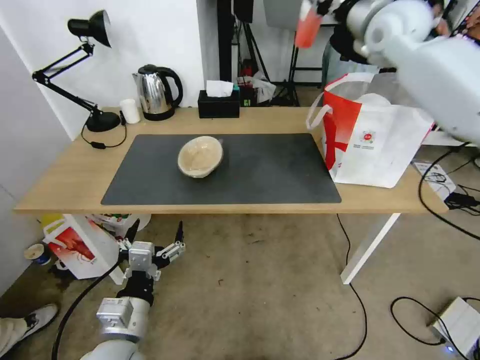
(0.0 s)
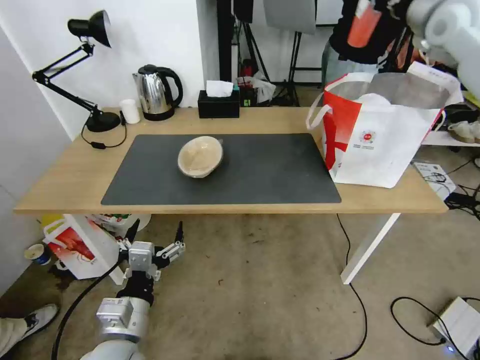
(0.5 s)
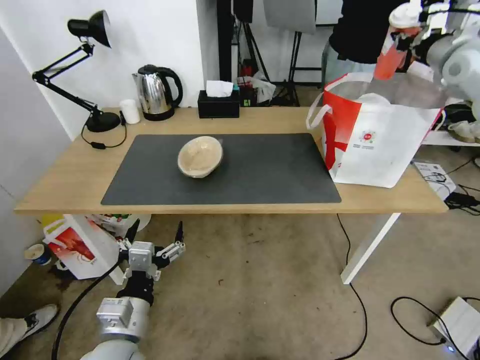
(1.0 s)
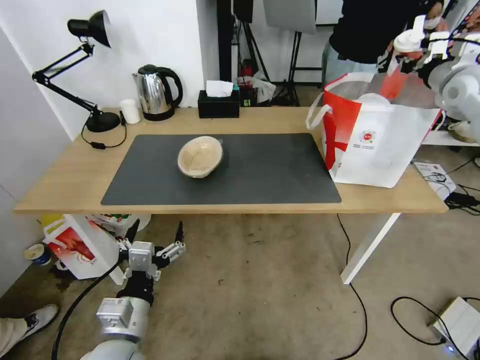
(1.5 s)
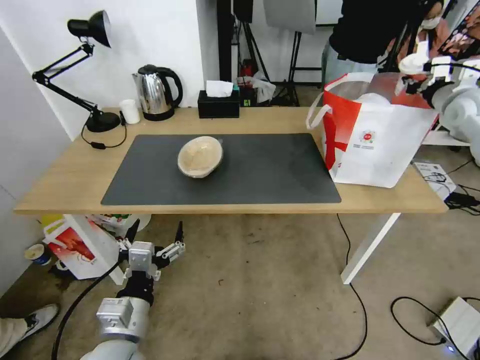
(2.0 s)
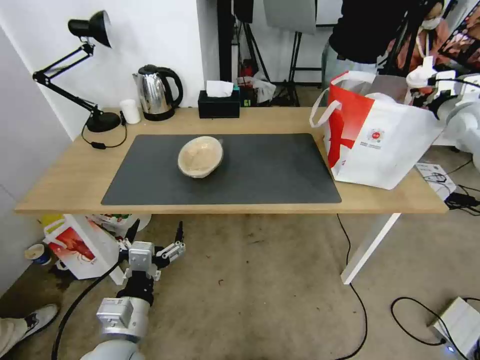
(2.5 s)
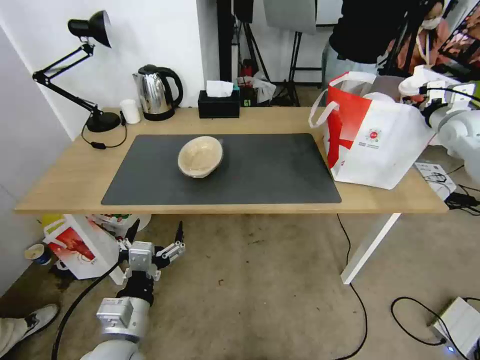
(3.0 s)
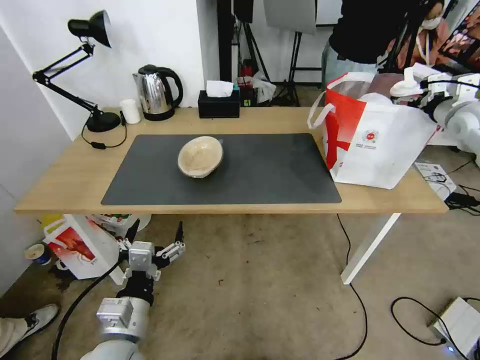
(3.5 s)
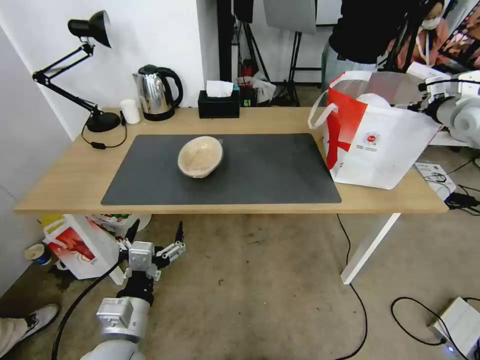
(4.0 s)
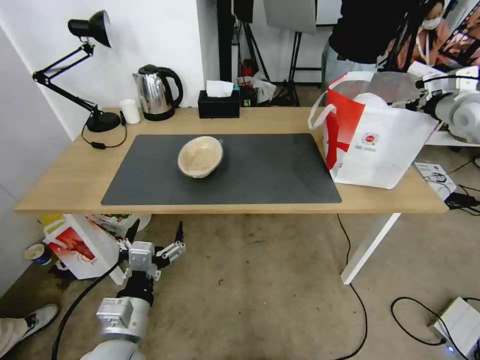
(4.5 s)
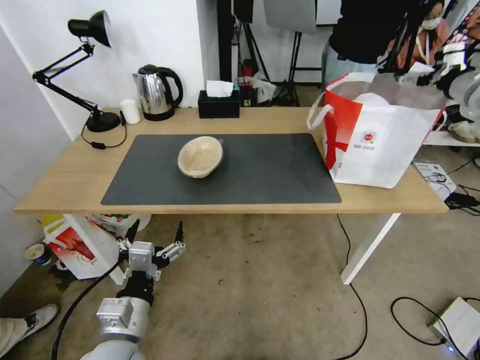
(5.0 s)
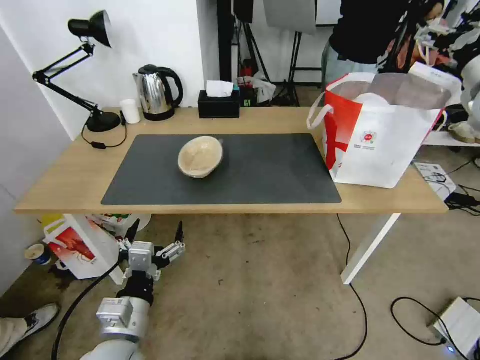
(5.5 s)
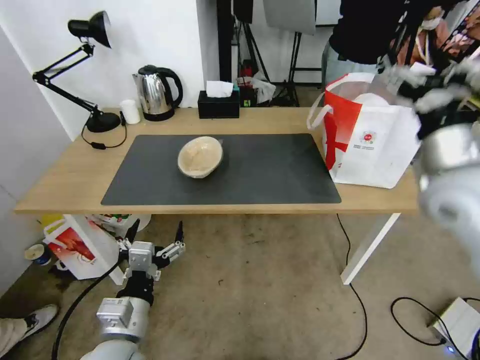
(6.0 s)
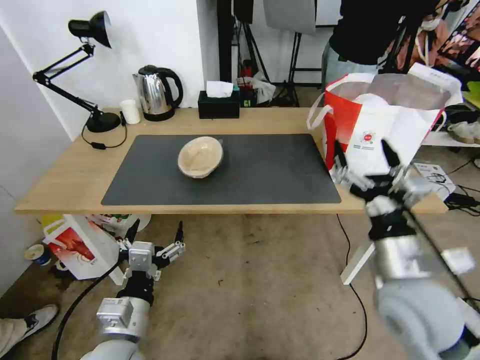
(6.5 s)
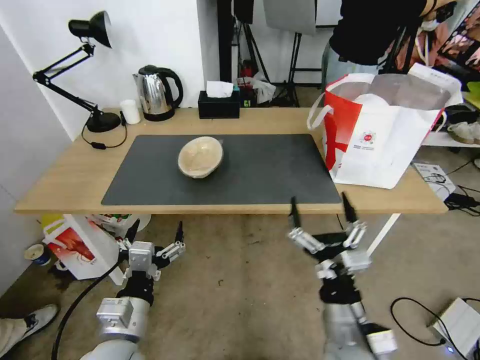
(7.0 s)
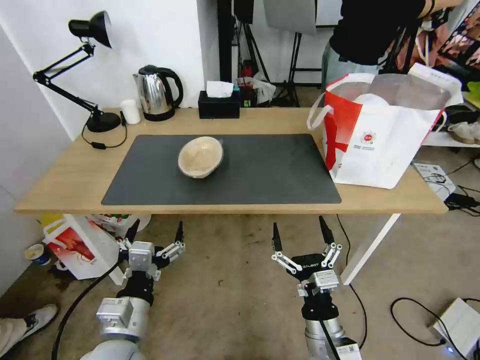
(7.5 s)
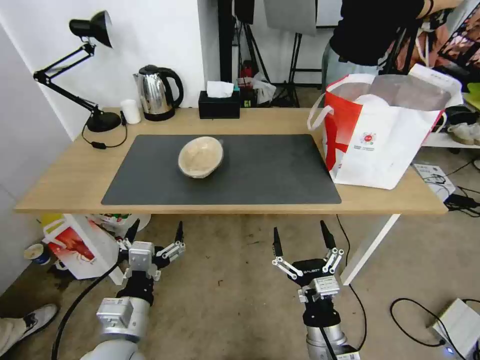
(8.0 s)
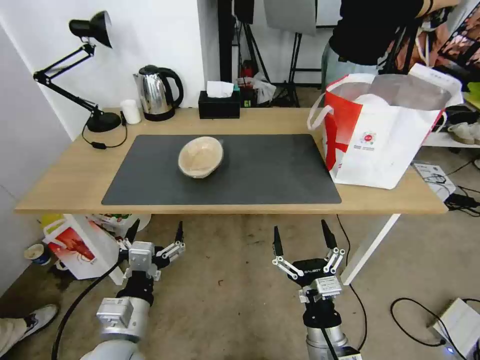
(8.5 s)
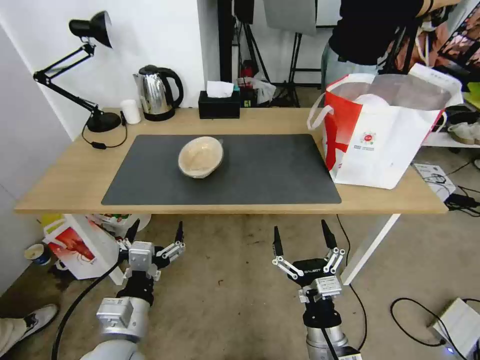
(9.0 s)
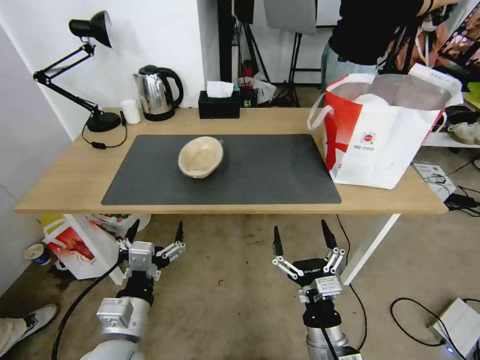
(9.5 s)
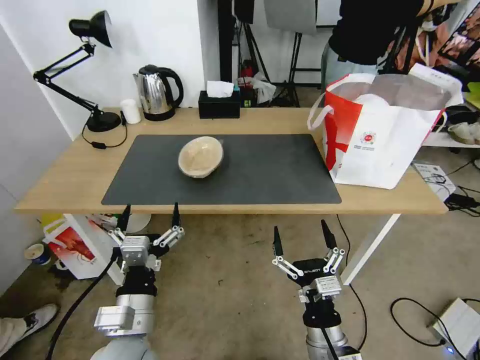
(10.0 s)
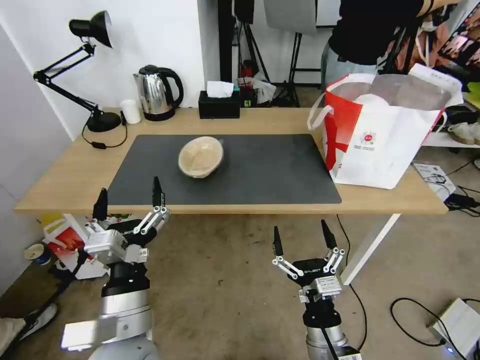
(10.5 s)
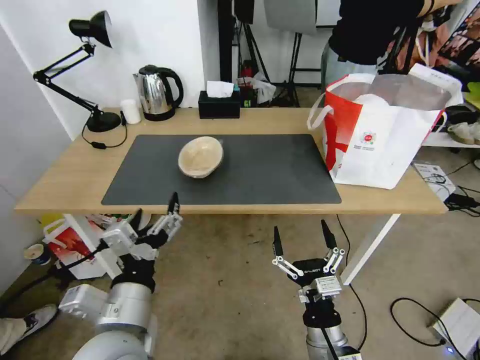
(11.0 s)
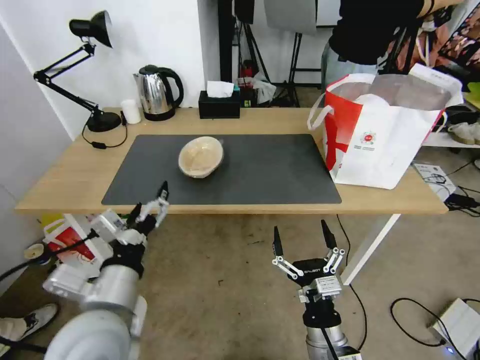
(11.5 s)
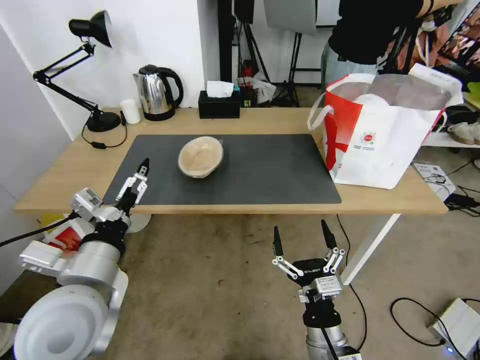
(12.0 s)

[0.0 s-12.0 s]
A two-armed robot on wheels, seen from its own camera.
Task of the whole recording: Pick up the trash from the table and place it into the takeout bag.
0.0 to 2.0 s: The right gripper goes approximately 25 cm to the right and downward.
2.0 to 4.0 s: The right gripper opens up.
4.0 to 6.0 s: The right gripper is displaced backward and to the left by roughly 25 cm.
6.0 to 8.0 s: The right gripper is displaced downward, backward and to the left by approximately 40 cm.
8.0 to 10.0 s: There are only small adjustments of the grippers.
10.0 to 12.0 s: The left gripper travels upward and to the left by approximately 10 cm.

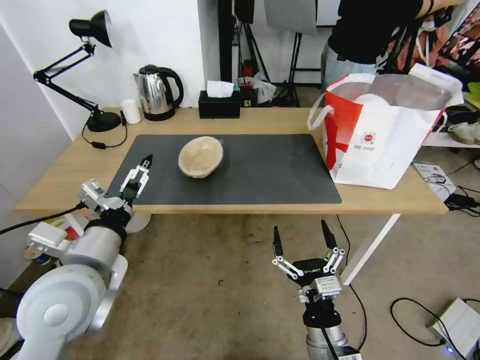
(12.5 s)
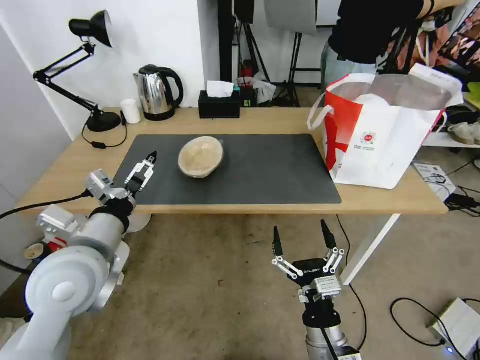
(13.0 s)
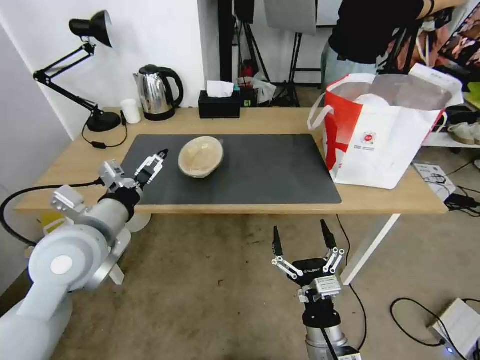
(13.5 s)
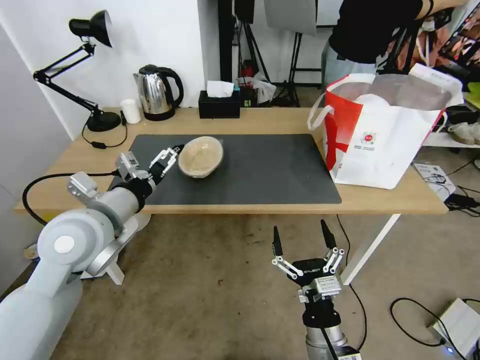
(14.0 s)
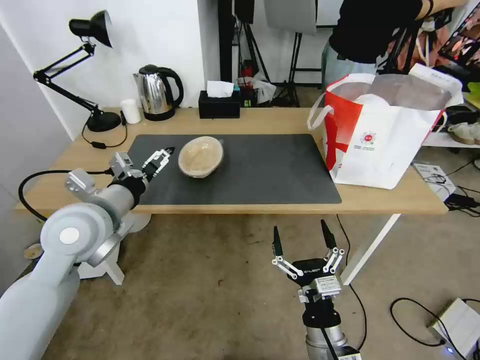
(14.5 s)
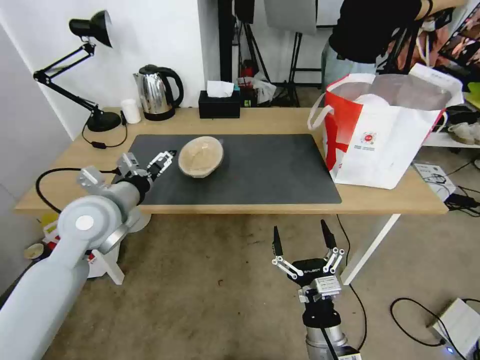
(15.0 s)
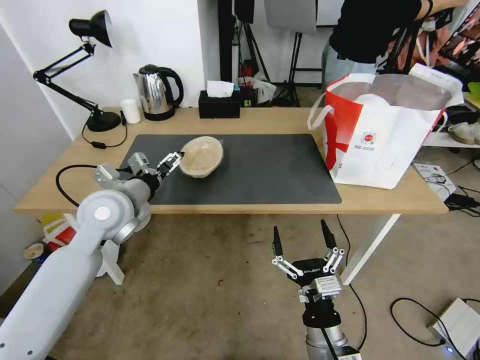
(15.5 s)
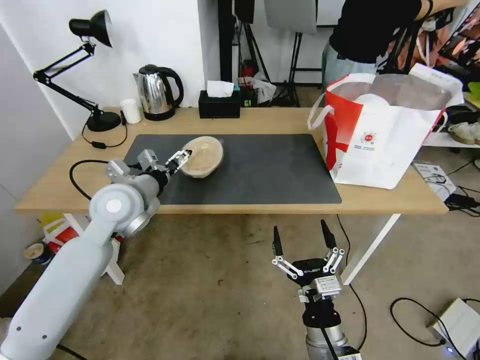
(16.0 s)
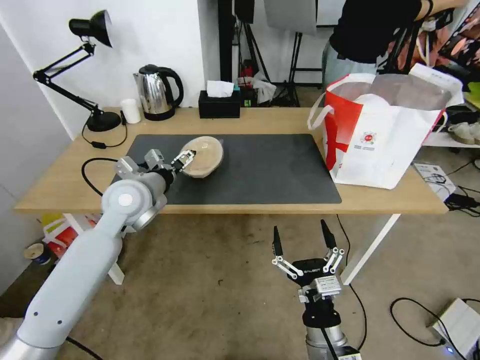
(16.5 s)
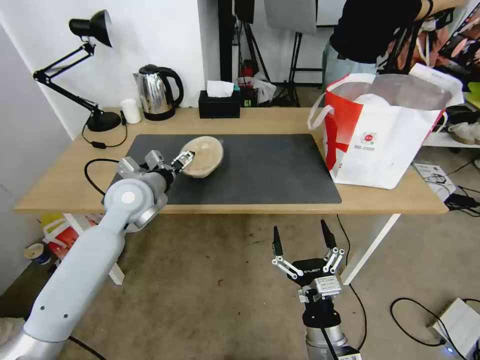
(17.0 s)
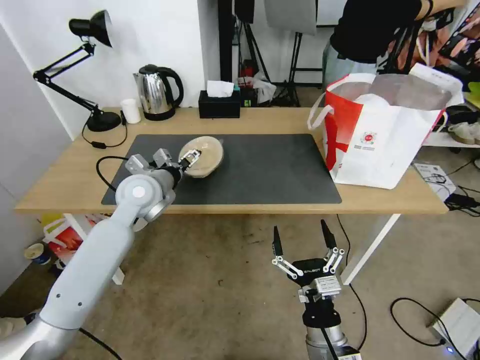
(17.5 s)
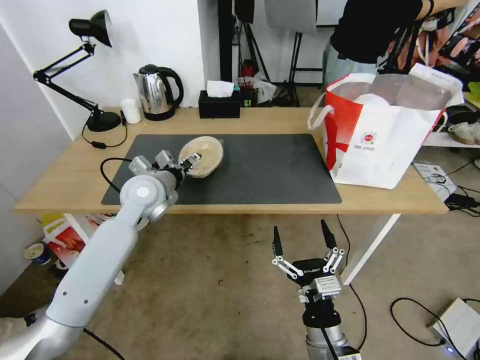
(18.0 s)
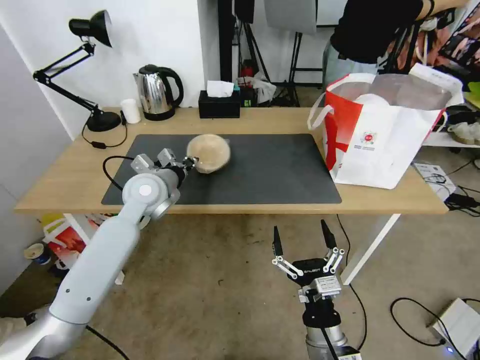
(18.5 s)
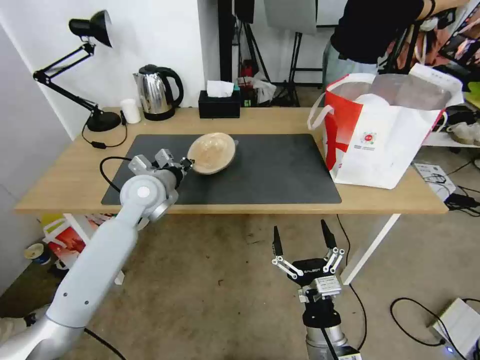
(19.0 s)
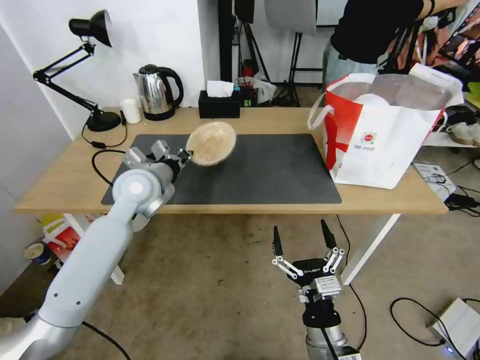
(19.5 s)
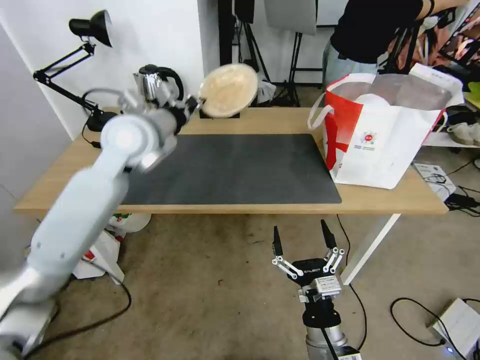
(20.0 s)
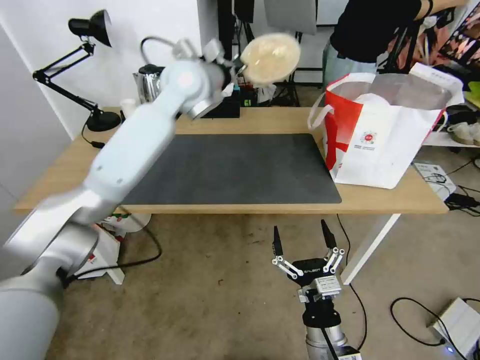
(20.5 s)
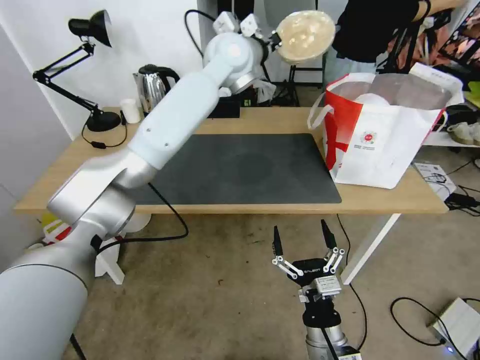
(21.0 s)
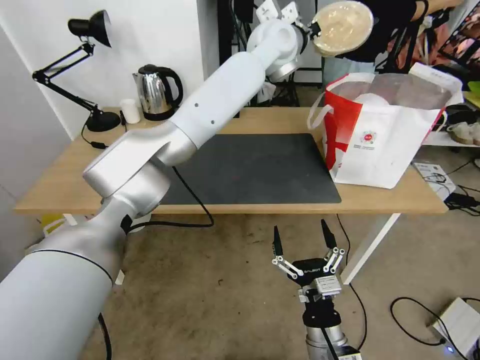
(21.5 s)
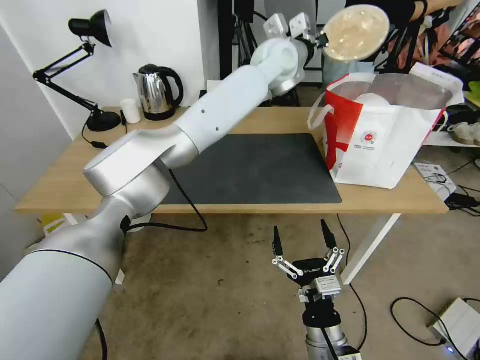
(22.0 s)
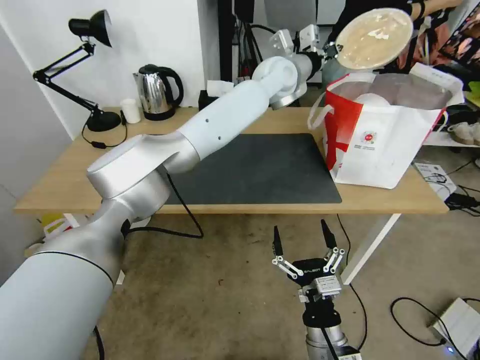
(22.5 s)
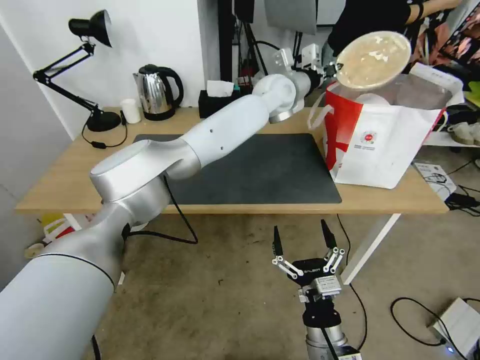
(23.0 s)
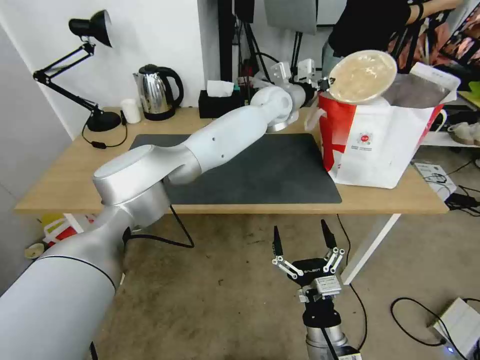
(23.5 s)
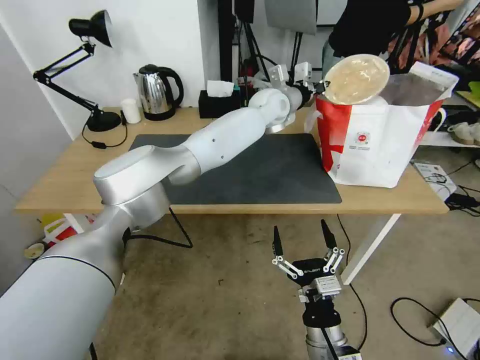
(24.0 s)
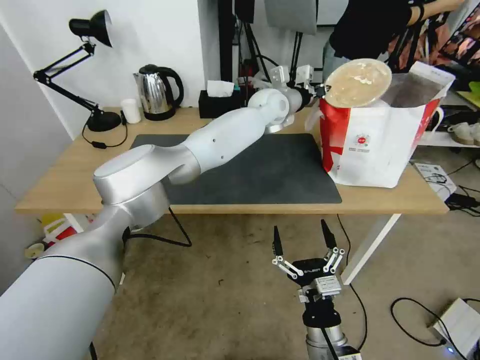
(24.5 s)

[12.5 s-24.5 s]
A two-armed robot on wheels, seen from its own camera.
Task of the whole recording: Pick up the trash from the table and place it into the takeout bag.
12.5 to 14.5 s: The left gripper travels forward by roughly 10 cm.
14.5 to 16.5 s: The left gripper shifts approximately 10 cm forward.
16.5 to 18.5 s: The left gripper closes up.
18.5 to 20.5 s: The left gripper goes about 25 cm upward, to the right and forward.
20.5 to 22.5 s: The left gripper travels to the right and forward by some 20 cm.
22.5 to 24.5 s: The left gripper goes about 10 cm downward.

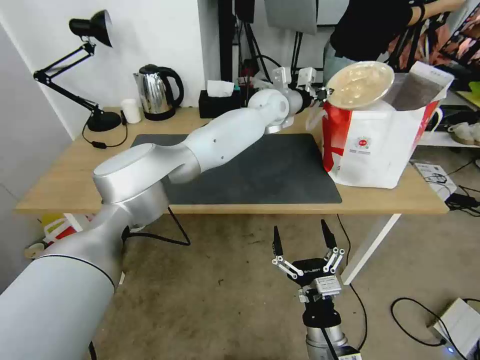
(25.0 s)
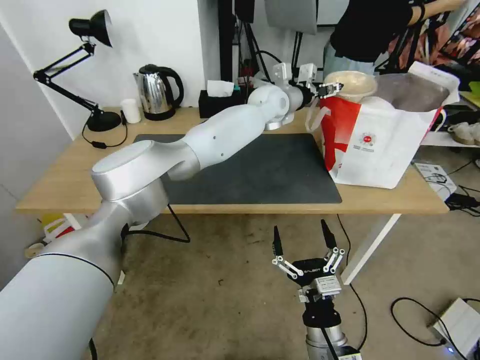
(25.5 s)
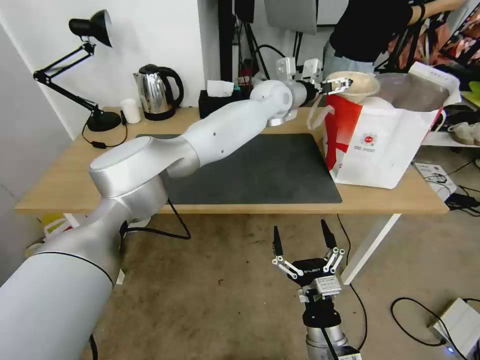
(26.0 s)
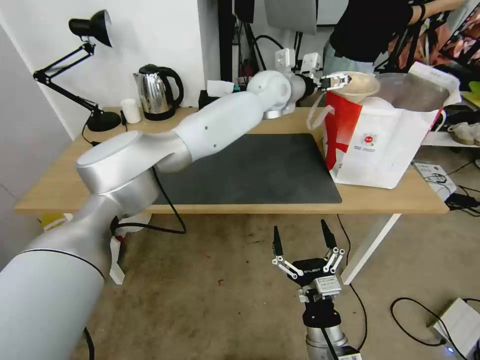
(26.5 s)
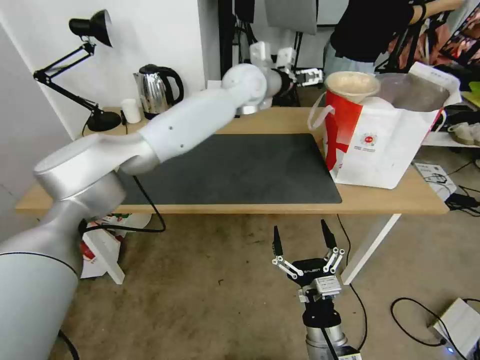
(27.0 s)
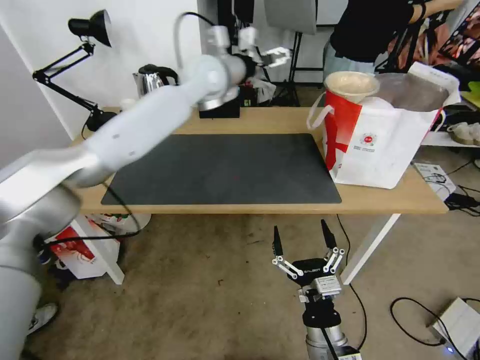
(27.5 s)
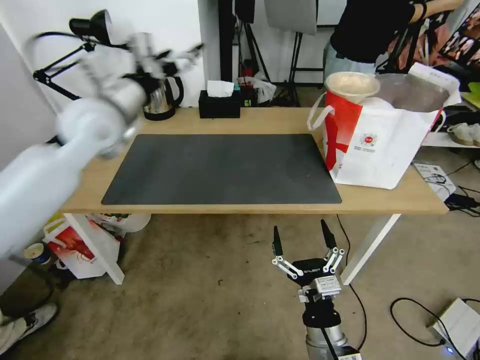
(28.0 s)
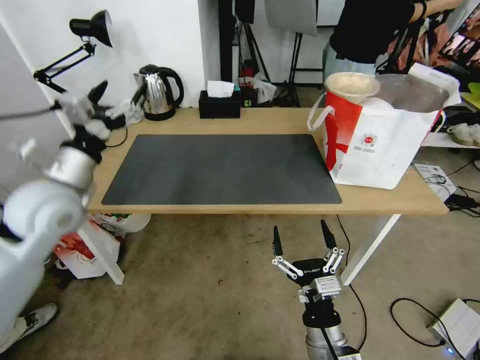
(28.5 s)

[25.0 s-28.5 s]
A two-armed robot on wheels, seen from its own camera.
Task of the whole recording: Pick up the trash from the table and place it into the takeout bag.
25.0 to 27.0 s: The left gripper goes some 10 cm upward and to the left, and opens up.
27.0 to 28.5 s: The left gripper shifts roughly 40 cm to the left and backward.
